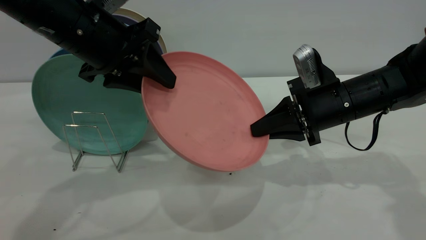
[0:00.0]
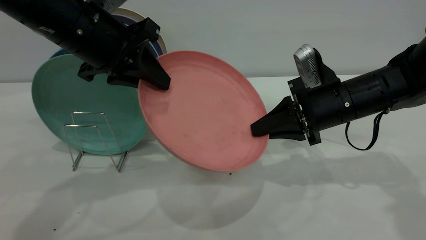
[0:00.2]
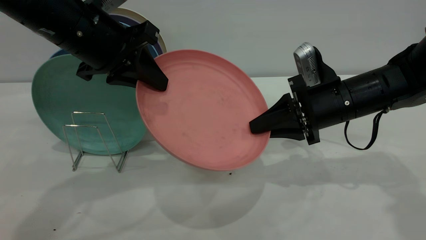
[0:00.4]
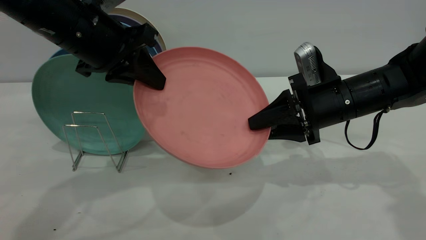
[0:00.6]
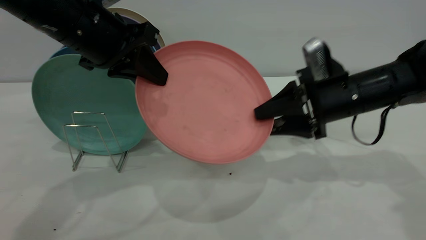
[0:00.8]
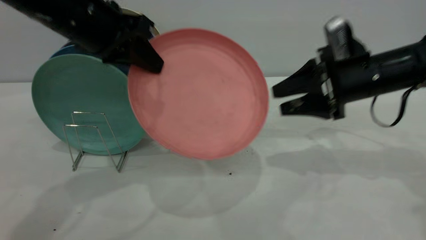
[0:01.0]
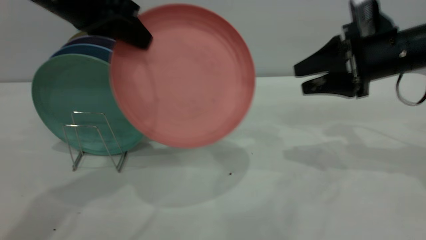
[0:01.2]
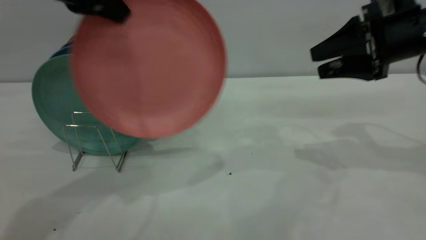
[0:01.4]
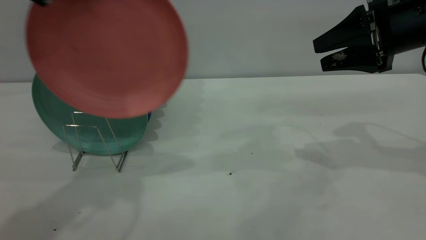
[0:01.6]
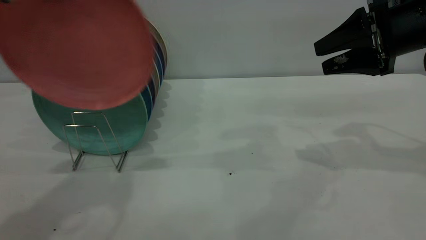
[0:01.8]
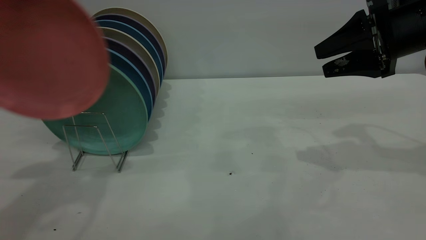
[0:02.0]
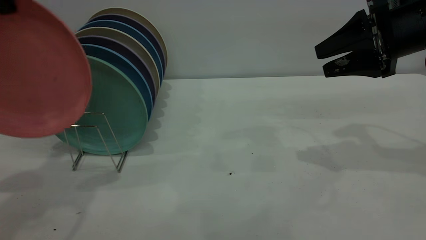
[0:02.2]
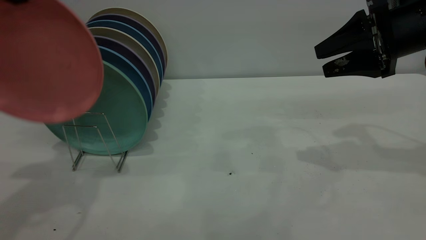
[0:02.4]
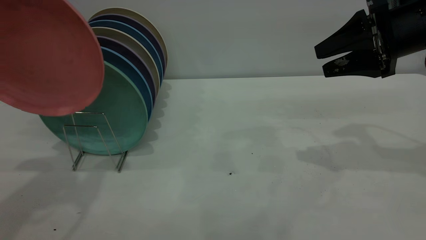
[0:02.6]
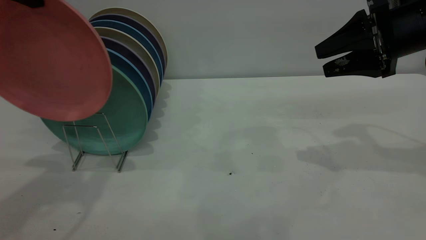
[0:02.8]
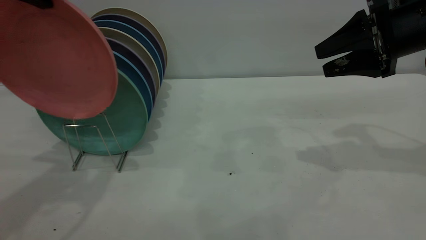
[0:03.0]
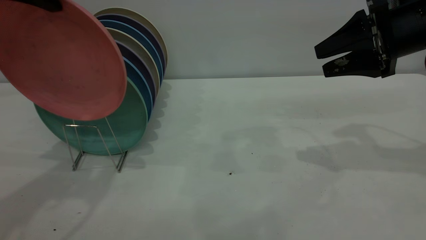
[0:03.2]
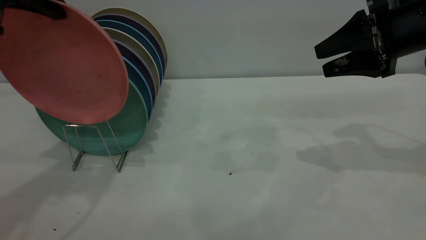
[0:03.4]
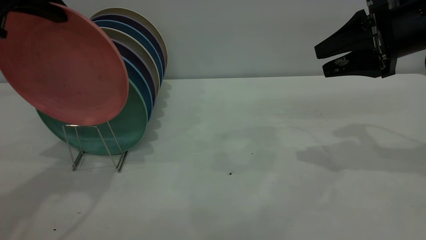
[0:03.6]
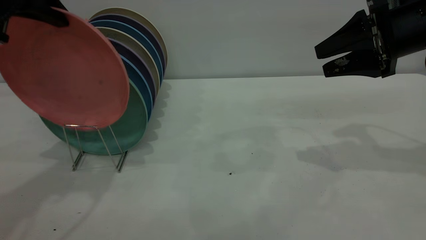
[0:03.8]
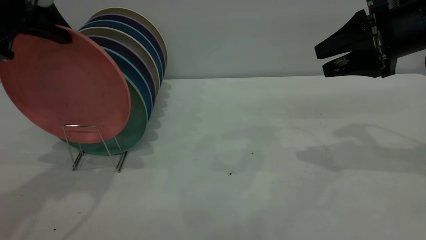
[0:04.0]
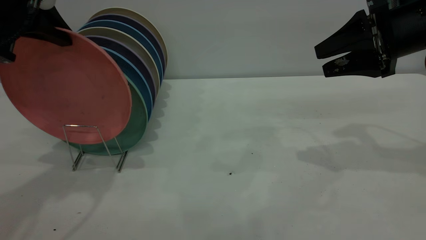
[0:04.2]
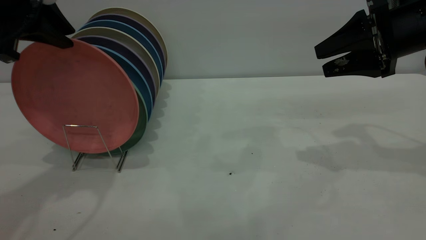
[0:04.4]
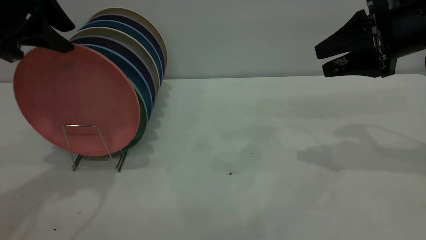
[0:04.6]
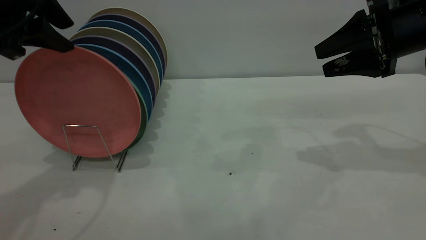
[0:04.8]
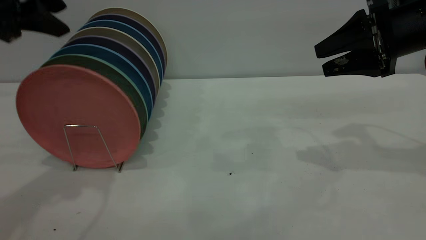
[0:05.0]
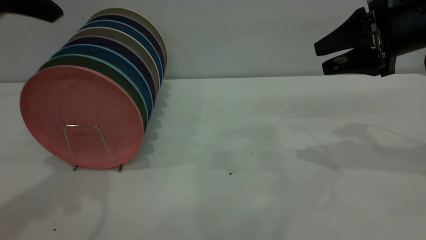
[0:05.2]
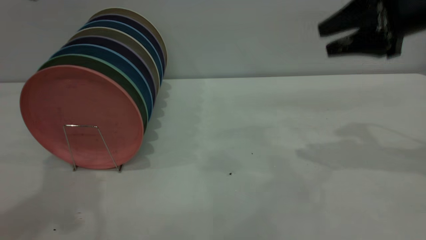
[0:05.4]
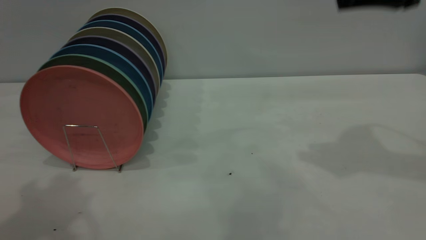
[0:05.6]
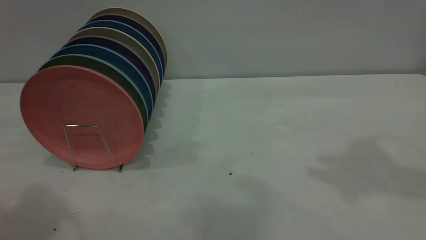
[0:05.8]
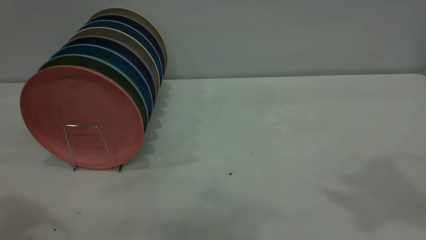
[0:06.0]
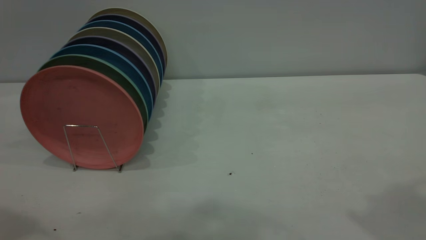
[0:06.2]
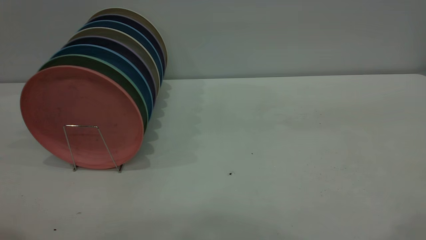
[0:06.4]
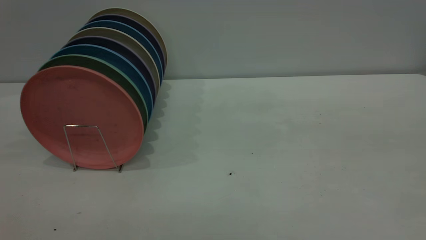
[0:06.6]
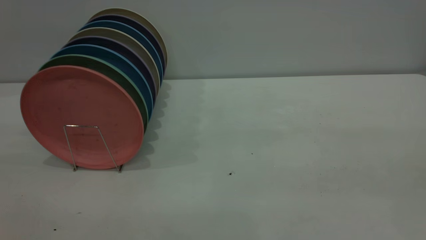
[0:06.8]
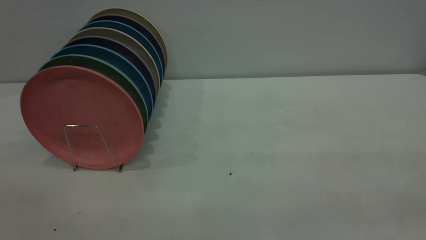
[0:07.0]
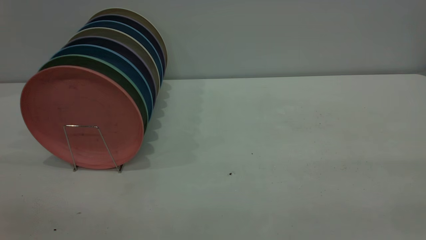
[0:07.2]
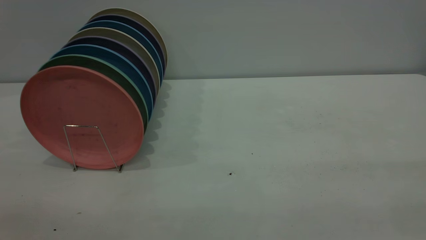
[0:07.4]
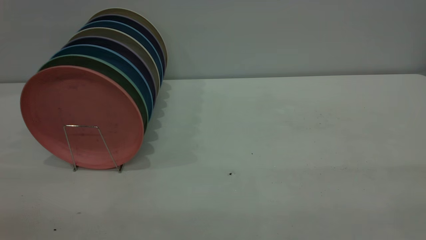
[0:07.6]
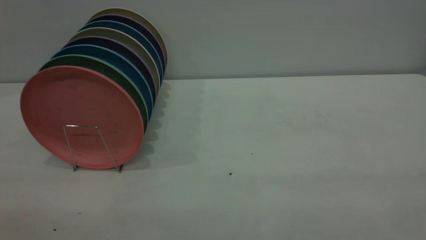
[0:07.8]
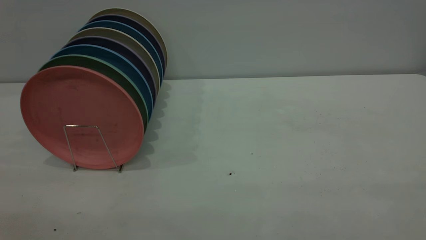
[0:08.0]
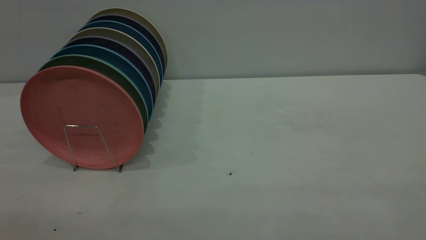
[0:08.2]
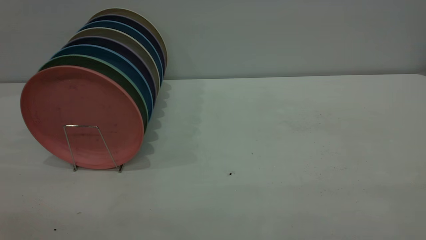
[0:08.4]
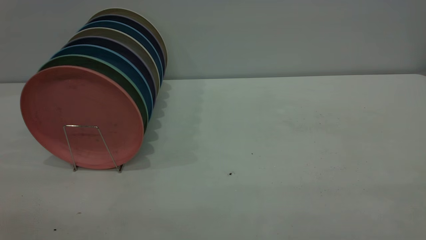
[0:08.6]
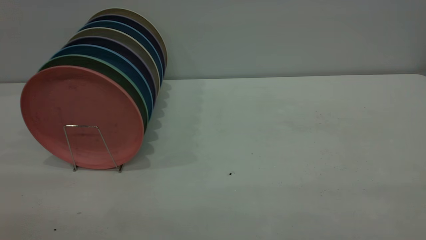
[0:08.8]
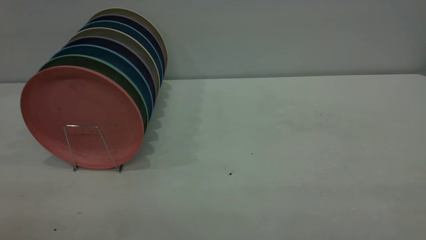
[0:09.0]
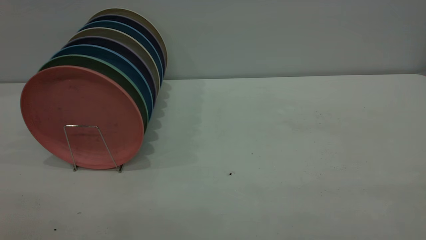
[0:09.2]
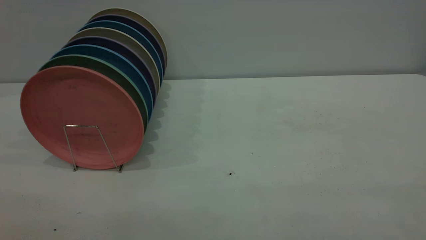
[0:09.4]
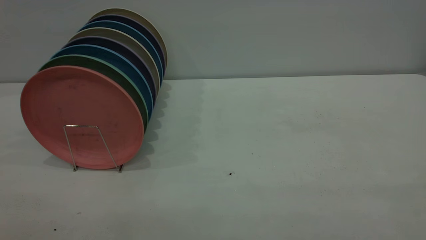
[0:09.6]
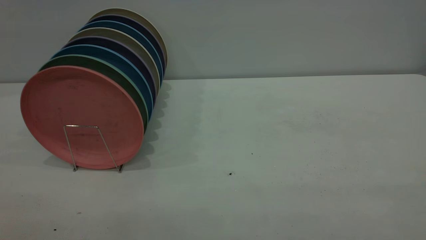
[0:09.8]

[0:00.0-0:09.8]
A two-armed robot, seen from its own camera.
Task of the whole recording: the right gripper grasp the pink plate, the right gripper pass the pink plate to the left gripper, and the left gripper place the pink plate on the plate rack.
Step, 0:01.2 to 0:05.0: Place the plate on the shelf.
0:00.0 to 0:01.4: The right gripper shifts approximately 15 cm upward and to the right, and opens its fingers. Meanwhile the left gripper heads upward, covering some 10 cm, and closes its fingers.
0:01.4 to 0:02.8: The left gripper moves to the left, some 5 cm.
0:02.8 to 0:04.2: The left gripper moves downward, some 5 cm.
0:04.2 to 0:05.6: The right gripper is displaced upward by roughly 10 cm; the left gripper heads upward and backward, covering some 15 cm, and opens up.
0:05.6 to 0:07.0: The right gripper shifts about 30 cm backward.
